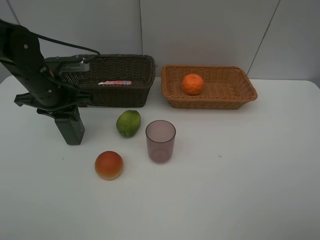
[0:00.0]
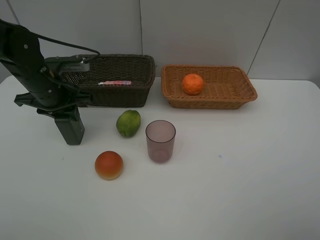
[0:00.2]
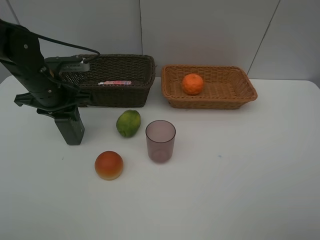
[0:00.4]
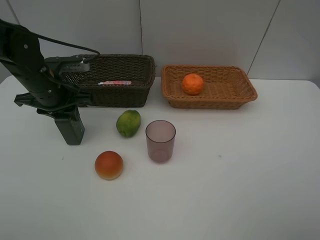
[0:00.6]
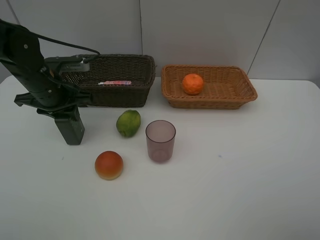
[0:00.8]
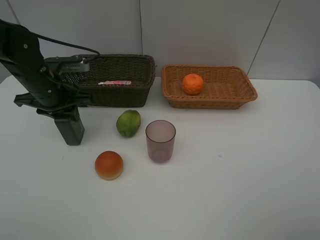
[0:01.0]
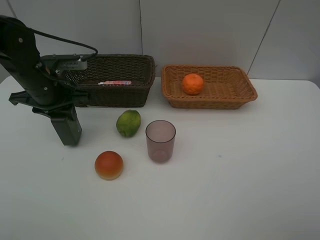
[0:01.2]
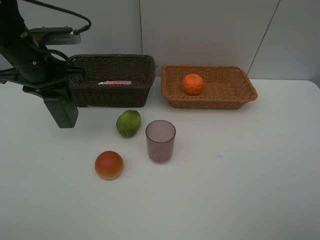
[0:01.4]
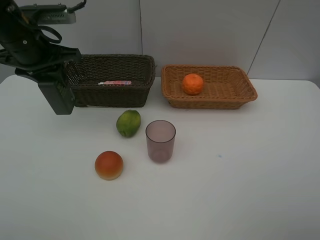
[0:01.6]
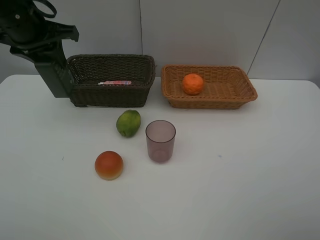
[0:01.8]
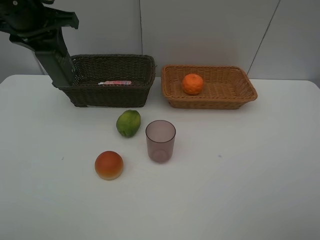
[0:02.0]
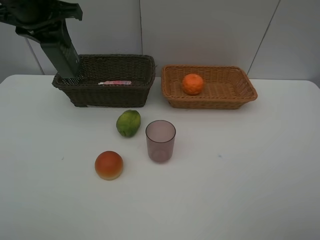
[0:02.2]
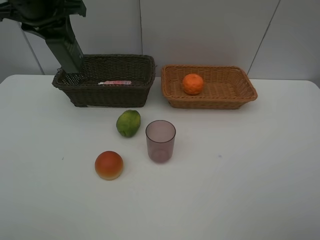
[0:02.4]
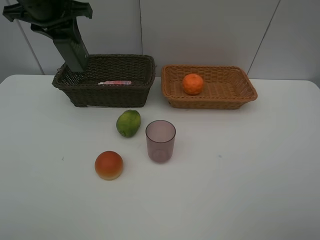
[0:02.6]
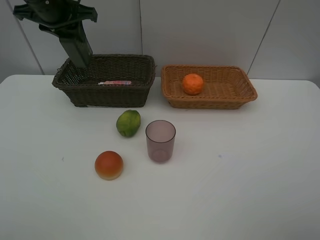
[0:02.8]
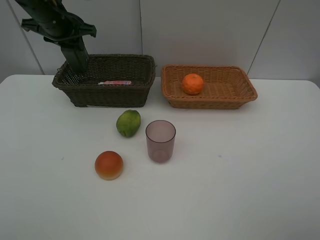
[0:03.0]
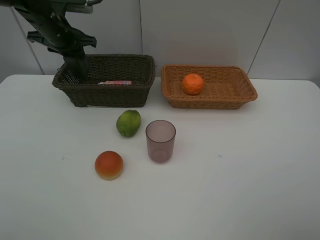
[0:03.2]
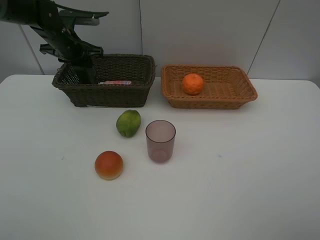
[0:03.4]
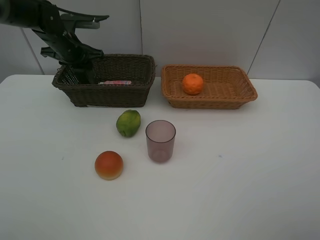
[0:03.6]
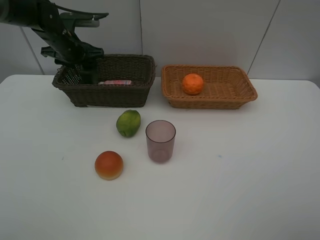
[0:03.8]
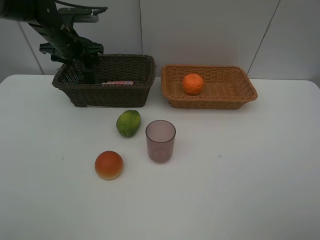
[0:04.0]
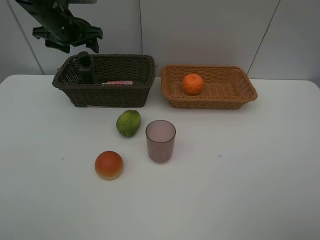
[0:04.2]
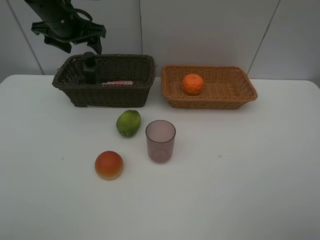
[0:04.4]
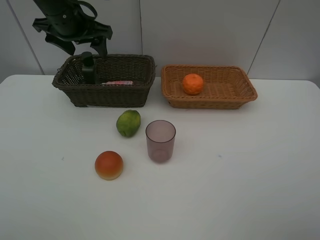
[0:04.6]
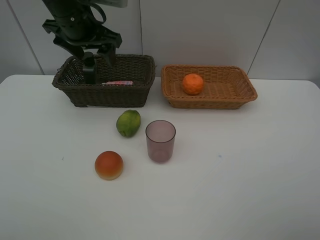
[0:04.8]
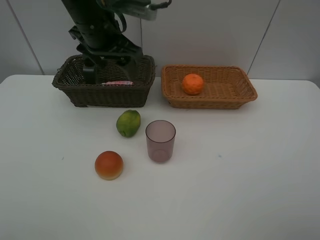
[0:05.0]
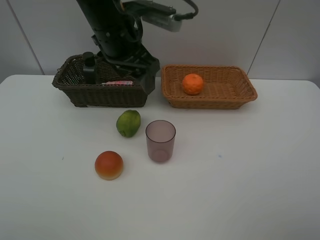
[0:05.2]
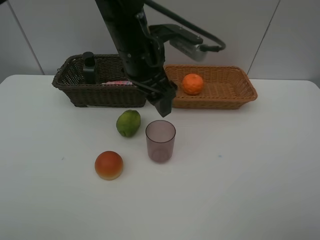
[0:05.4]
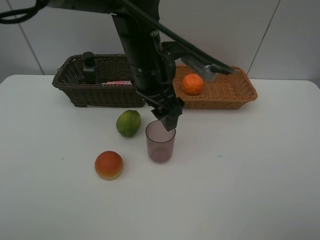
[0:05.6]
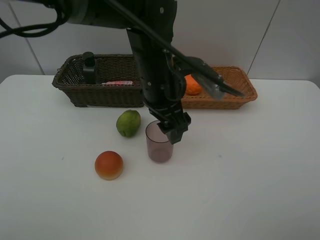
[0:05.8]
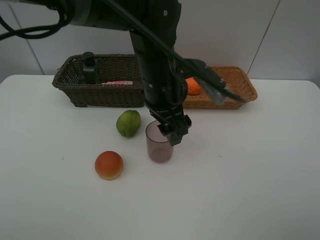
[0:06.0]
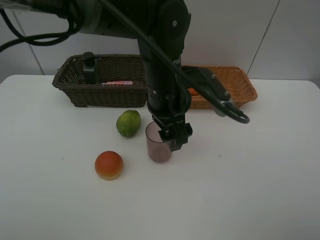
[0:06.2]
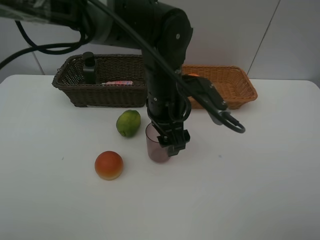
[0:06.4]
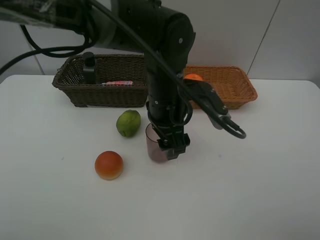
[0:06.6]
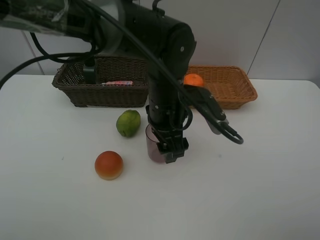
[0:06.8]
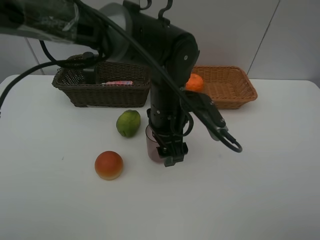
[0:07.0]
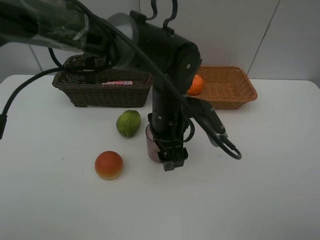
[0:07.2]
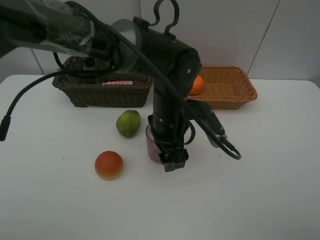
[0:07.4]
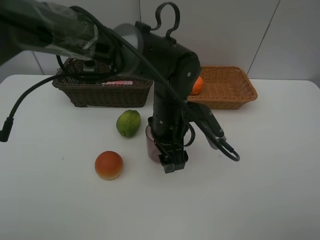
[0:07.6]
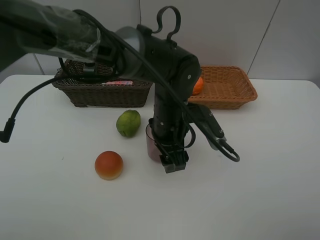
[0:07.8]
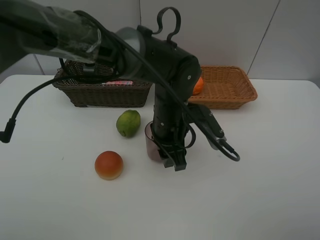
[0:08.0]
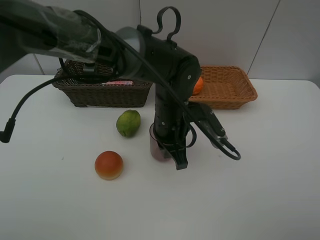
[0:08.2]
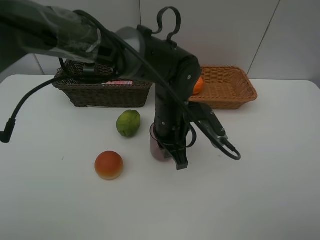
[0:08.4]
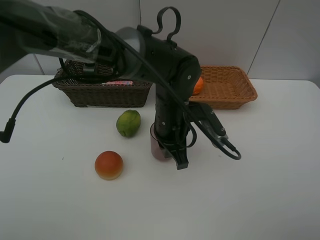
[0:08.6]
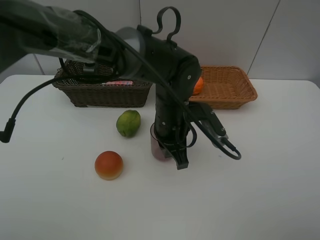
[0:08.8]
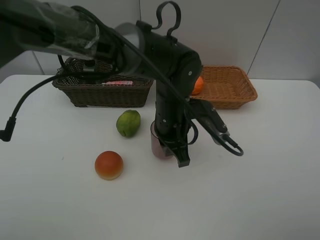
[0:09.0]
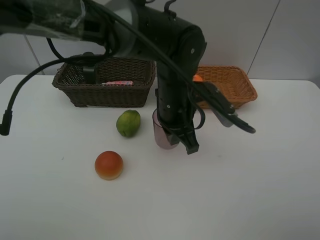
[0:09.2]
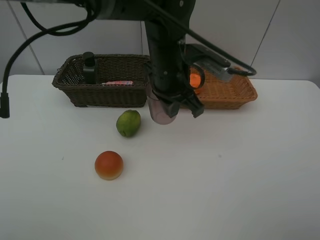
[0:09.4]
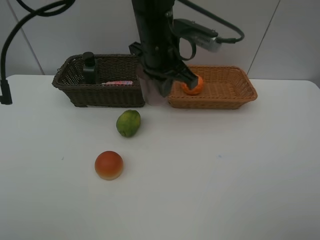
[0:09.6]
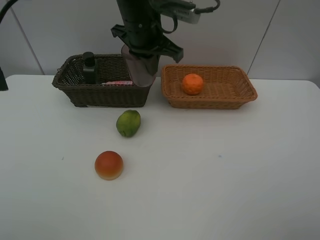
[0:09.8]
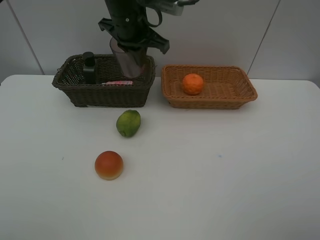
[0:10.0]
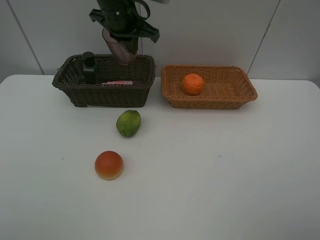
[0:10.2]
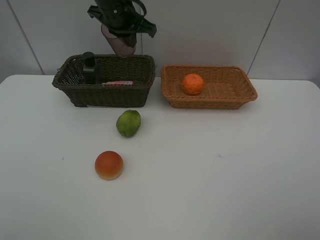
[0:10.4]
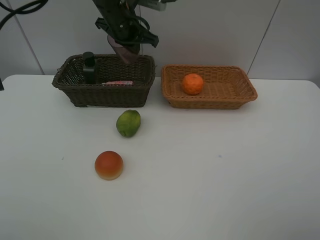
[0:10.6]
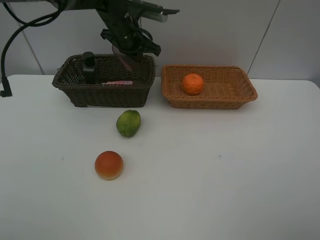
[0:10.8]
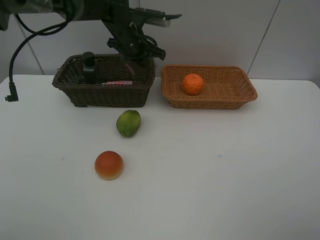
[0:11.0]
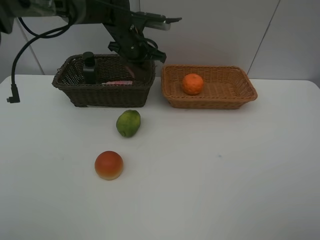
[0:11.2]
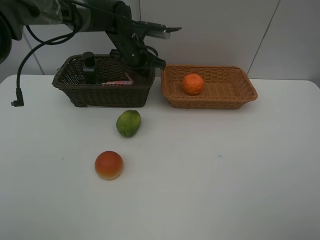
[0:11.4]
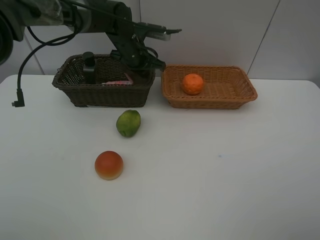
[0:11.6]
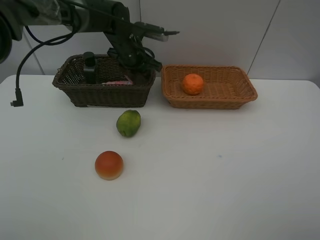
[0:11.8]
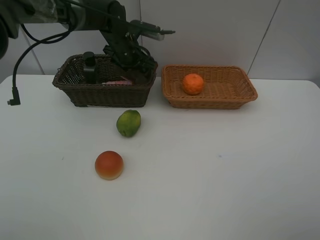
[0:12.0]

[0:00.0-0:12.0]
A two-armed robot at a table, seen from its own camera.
Task of the whole recording: place multiple objects separately in different baskets.
0:00.0 to 0:01.6: The left gripper goes some 10 cm upward.
0:01.6 to 0:03.0: The left gripper is displaced forward by some 10 cm.
0:03.0 to 0:04.4: The left gripper goes downward and returns, about 5 cm each way, and opens up.
0:04.4 to 0:06.0: The left gripper shifts approximately 25 cm to the right and backward.
0:06.0 to 0:07.6: The left gripper is displaced downward by about 10 cm.
0:07.6 to 0:09.0: The left gripper closes its fingers.
0:09.0 to 0:10.4: The left gripper heads forward, upward and to the left, covering roughly 25 cm.
0:10.4 to 0:12.0: The left gripper is displaced downward by about 10 cm, and opens up.

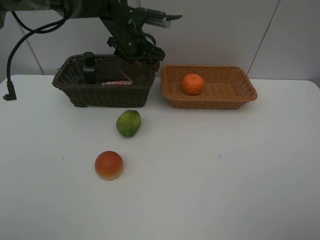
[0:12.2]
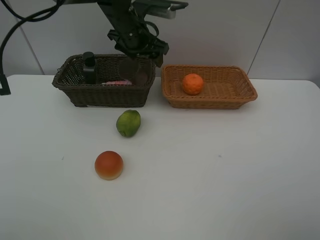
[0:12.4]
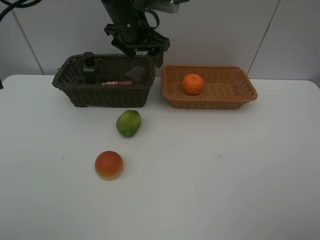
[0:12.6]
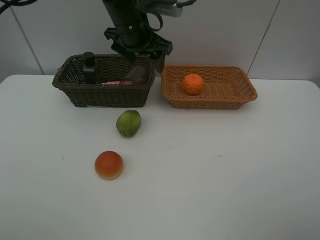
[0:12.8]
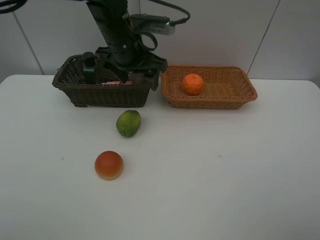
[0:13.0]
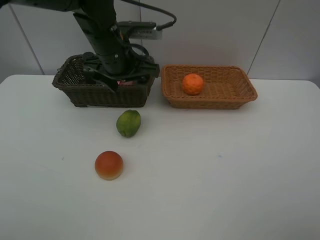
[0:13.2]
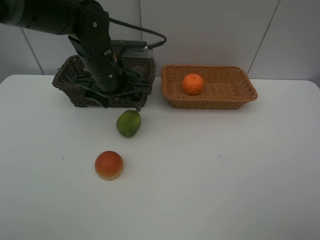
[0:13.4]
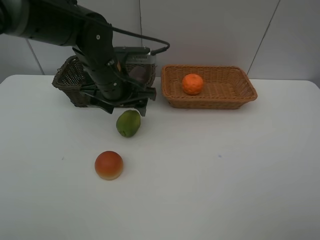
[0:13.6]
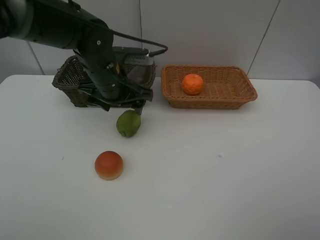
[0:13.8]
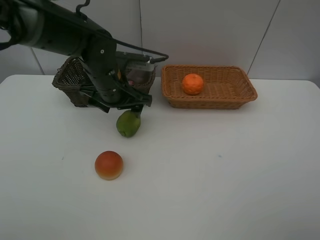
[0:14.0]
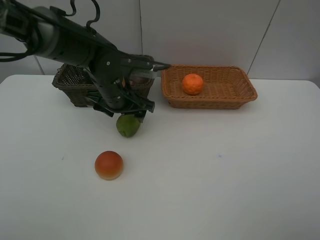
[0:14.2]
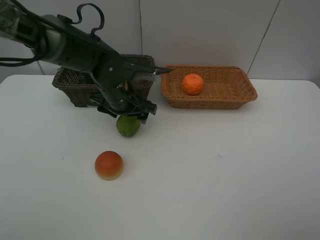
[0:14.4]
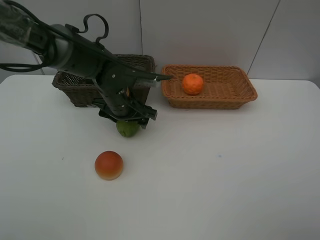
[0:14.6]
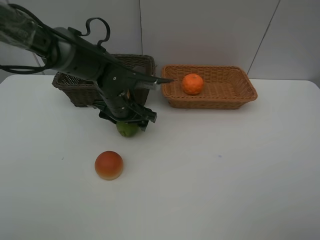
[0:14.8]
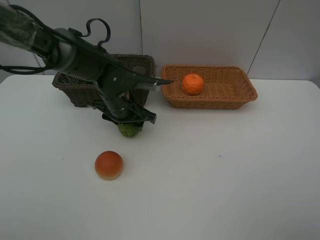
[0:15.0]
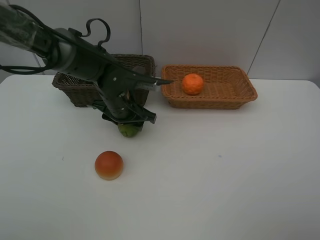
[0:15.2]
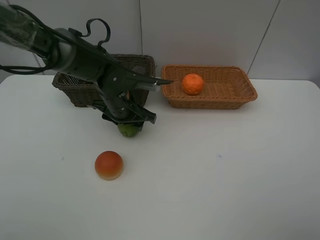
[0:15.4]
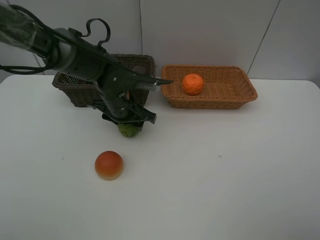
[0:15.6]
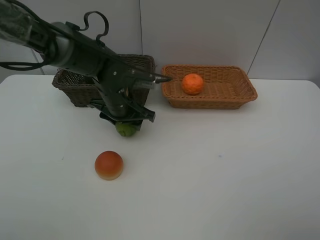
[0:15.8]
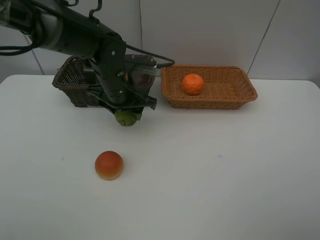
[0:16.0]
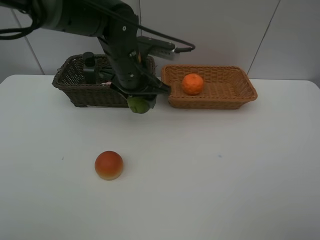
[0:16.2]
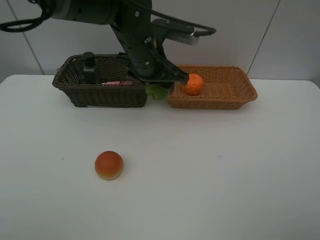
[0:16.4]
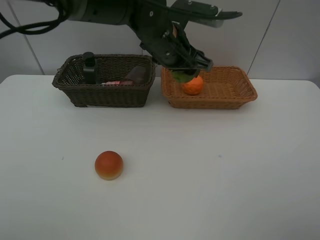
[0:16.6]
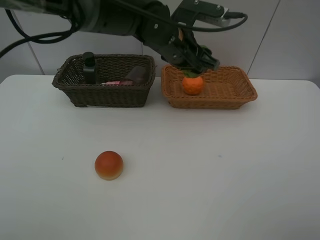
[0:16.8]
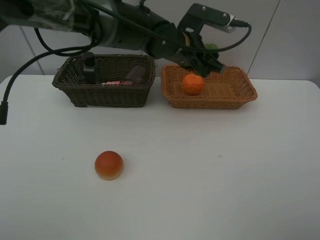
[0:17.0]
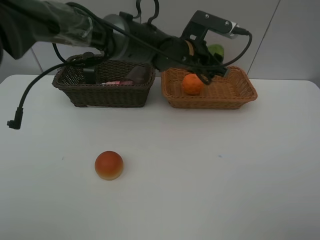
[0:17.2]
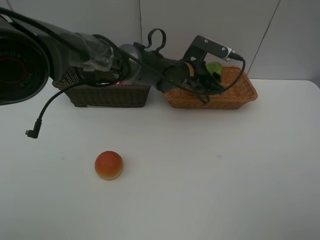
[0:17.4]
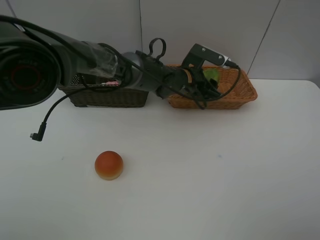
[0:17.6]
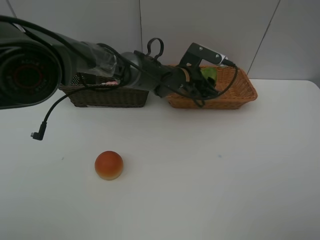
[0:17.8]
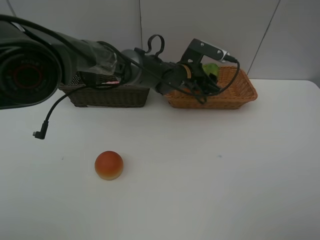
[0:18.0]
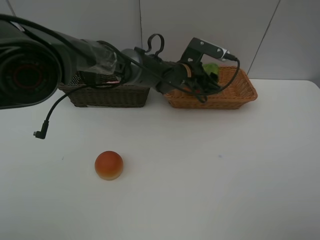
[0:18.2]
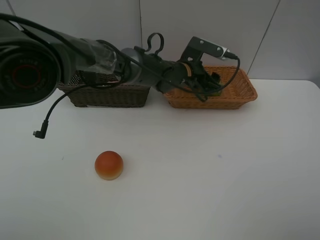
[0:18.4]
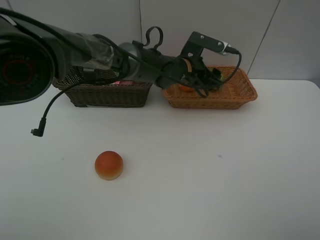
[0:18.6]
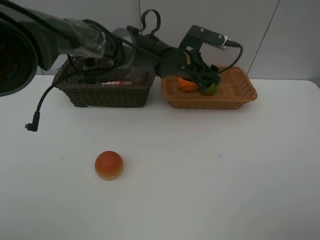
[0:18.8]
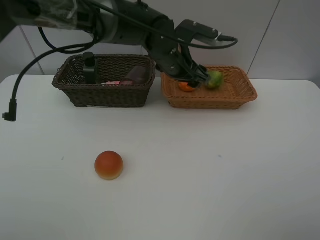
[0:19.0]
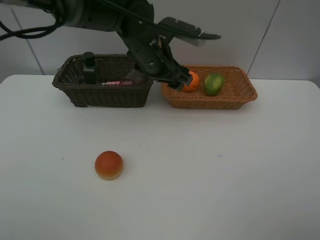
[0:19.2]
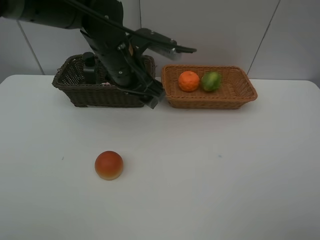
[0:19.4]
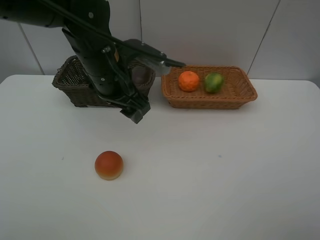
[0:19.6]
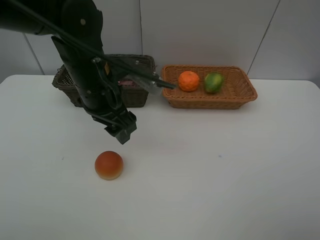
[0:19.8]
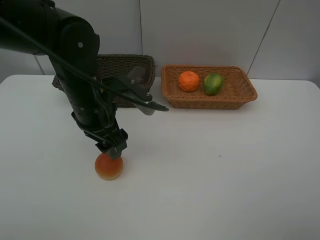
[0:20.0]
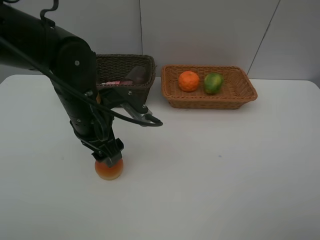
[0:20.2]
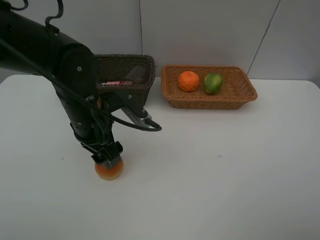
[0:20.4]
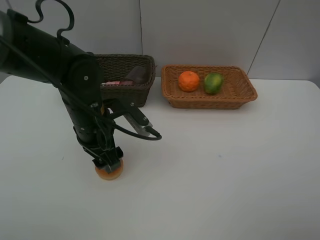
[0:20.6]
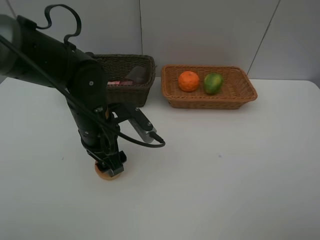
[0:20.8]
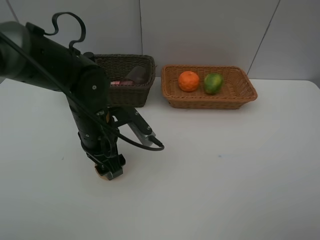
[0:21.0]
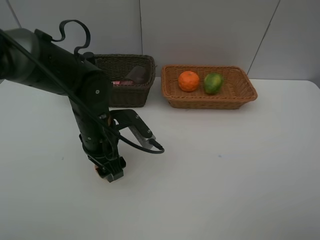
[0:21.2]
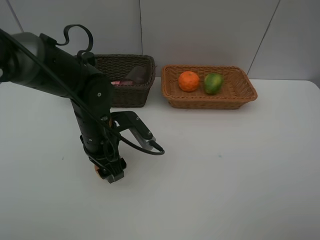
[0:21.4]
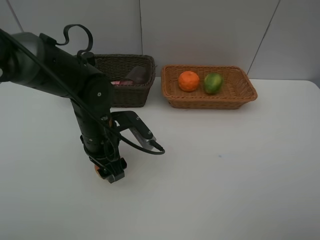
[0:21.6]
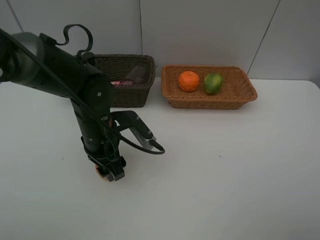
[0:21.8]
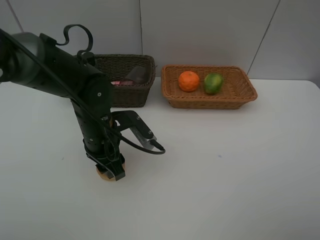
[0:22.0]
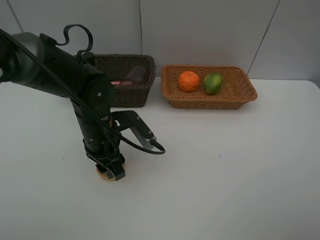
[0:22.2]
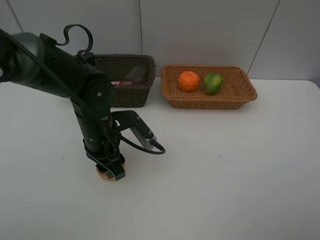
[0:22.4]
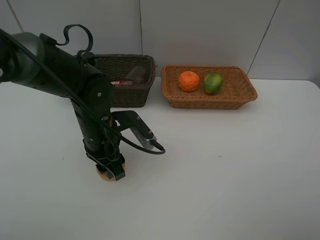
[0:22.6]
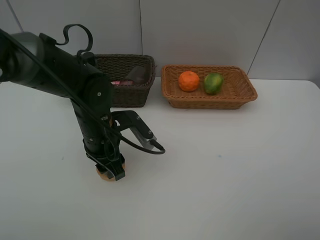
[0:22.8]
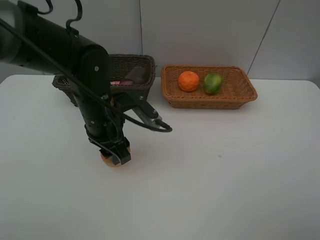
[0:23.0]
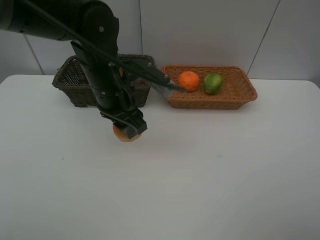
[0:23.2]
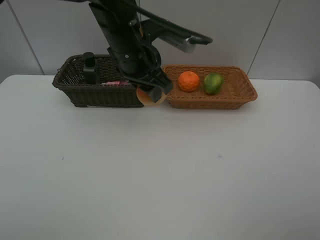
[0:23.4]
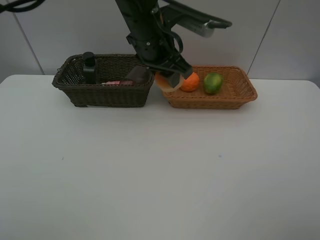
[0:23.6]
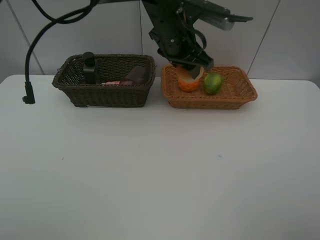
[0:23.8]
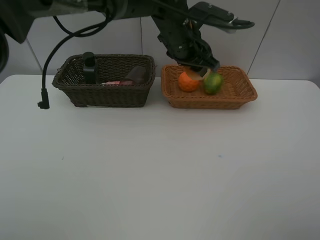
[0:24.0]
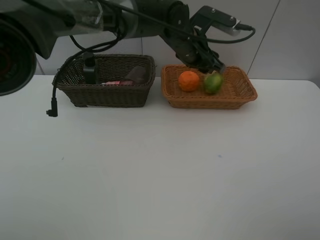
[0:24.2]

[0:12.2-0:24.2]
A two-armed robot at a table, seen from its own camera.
Task of the whole recording: place multiple objects separately in different baskets.
0:12.2 to 0:13.8: The left gripper is displaced backward by approximately 15 cm.
0:13.8 to 0:15.2: The left gripper shifts roughly 5 cm downward.
0:15.2 to 0:16.6: The left gripper travels upward and to the right by roughly 15 cm.
0:16.6 to 0:18.2: The left gripper heads downward and forward, covering some 10 cm.
0:18.2 to 0:19.8: The left gripper heads to the left, backward and upward, covering about 20 cm.
0:19.8 to 0:21.2: The left gripper heads downward, covering approximately 10 cm.
0:21.2 to 0:22.6: Both grippers stay put.
0:22.6 to 0:24.2: The left gripper heads to the right, forward and upward, covering roughly 25 cm.
